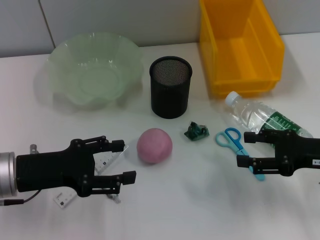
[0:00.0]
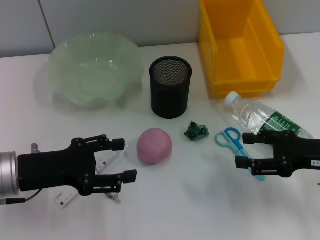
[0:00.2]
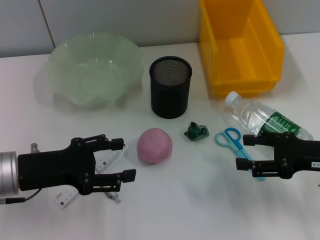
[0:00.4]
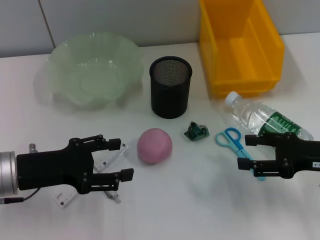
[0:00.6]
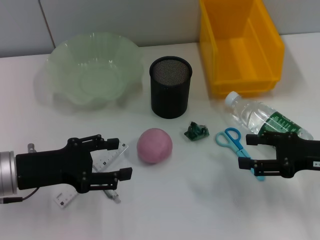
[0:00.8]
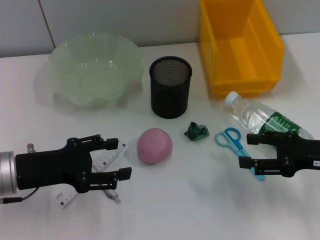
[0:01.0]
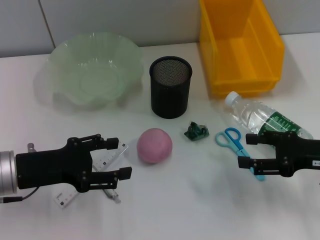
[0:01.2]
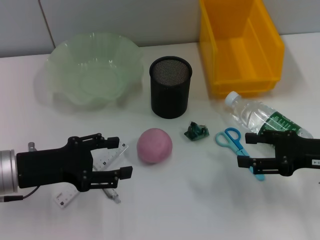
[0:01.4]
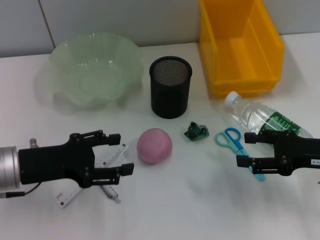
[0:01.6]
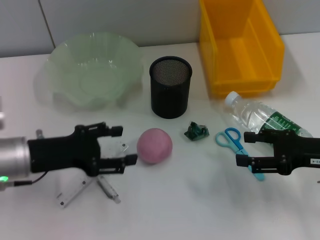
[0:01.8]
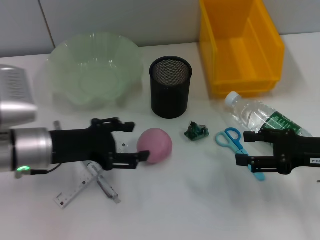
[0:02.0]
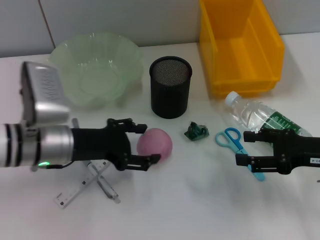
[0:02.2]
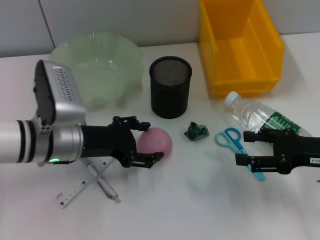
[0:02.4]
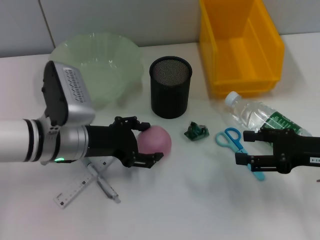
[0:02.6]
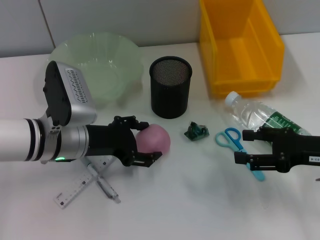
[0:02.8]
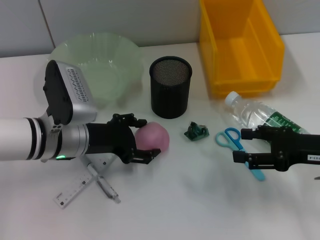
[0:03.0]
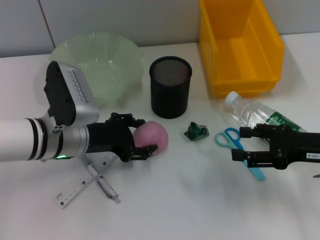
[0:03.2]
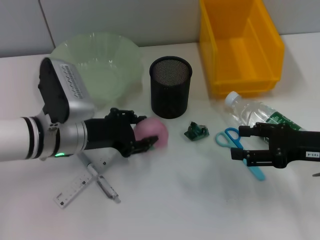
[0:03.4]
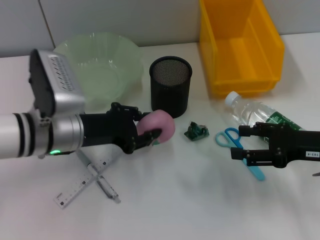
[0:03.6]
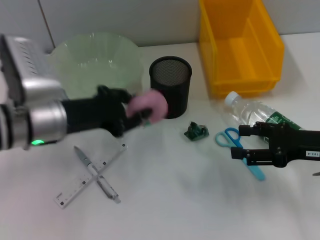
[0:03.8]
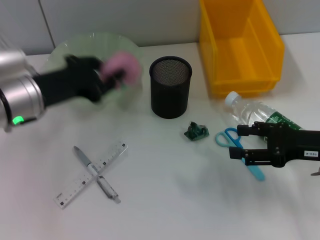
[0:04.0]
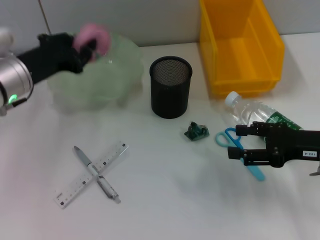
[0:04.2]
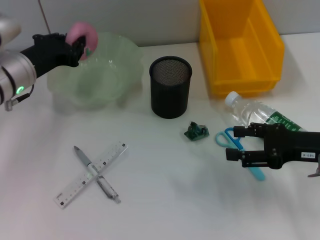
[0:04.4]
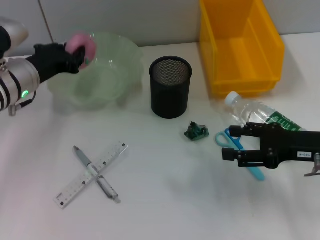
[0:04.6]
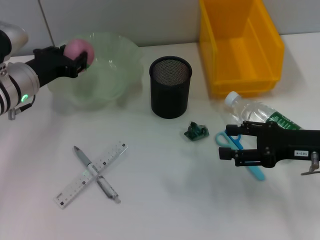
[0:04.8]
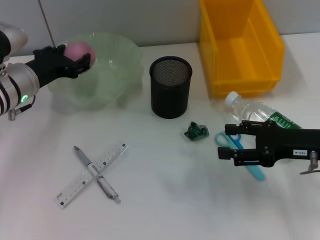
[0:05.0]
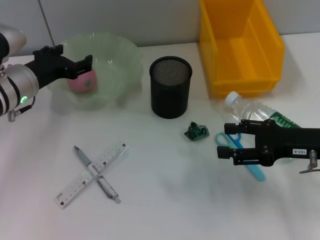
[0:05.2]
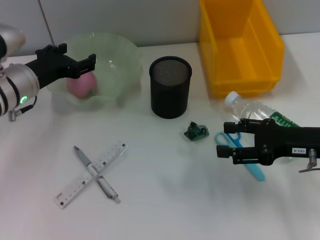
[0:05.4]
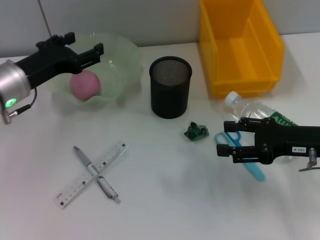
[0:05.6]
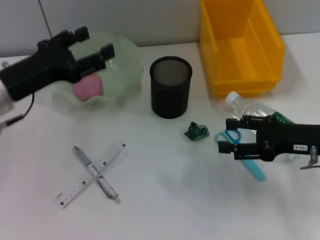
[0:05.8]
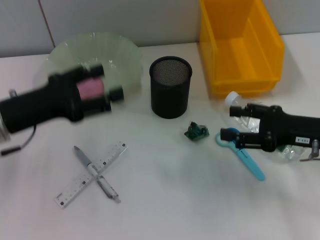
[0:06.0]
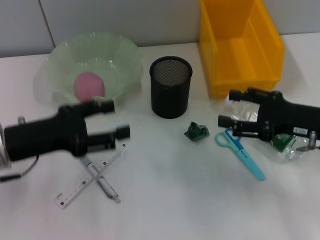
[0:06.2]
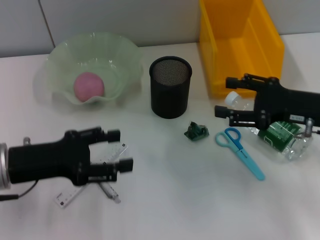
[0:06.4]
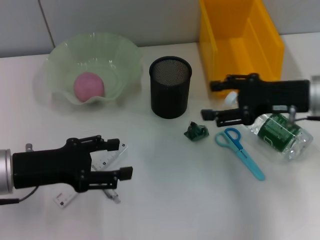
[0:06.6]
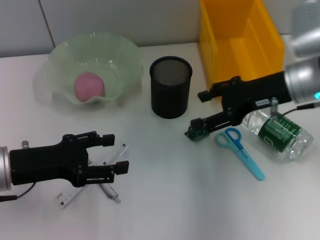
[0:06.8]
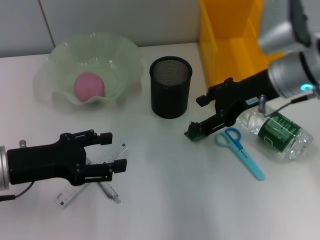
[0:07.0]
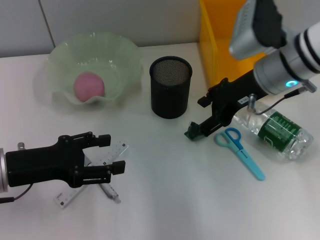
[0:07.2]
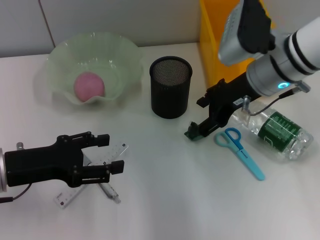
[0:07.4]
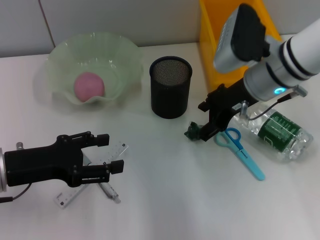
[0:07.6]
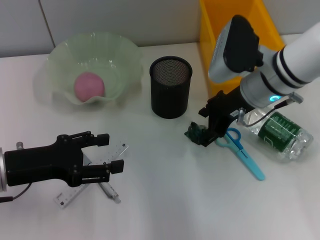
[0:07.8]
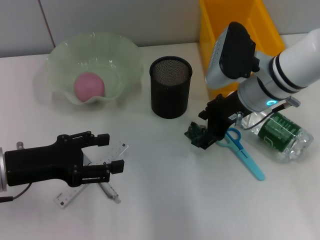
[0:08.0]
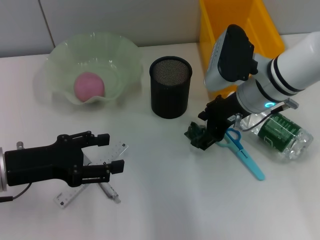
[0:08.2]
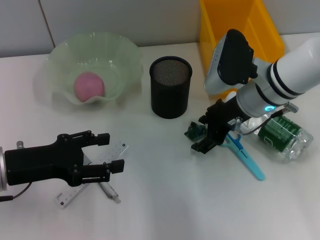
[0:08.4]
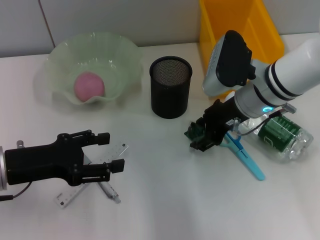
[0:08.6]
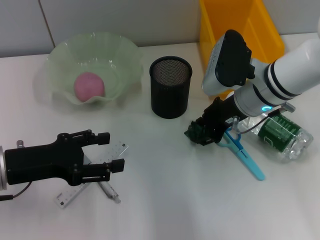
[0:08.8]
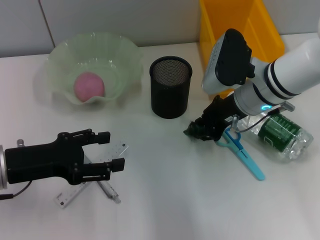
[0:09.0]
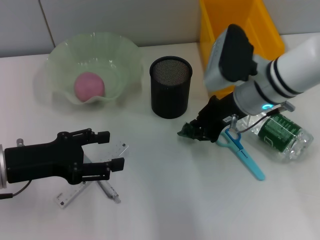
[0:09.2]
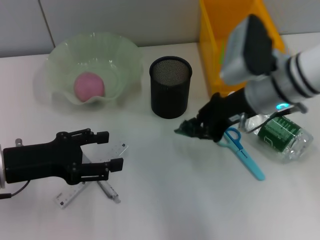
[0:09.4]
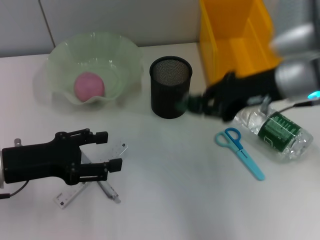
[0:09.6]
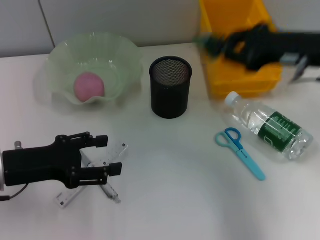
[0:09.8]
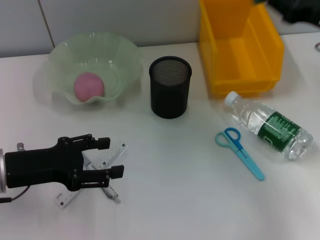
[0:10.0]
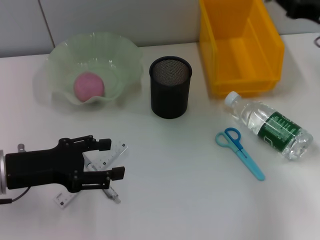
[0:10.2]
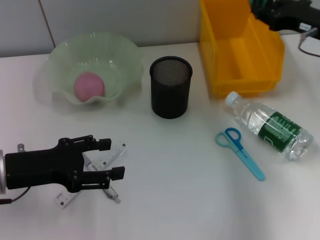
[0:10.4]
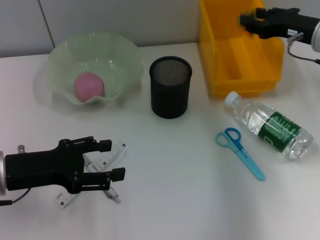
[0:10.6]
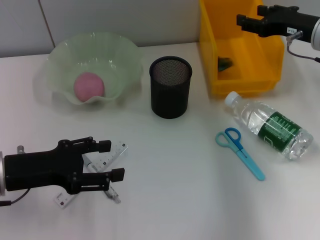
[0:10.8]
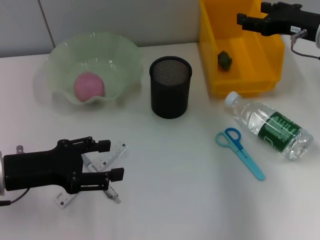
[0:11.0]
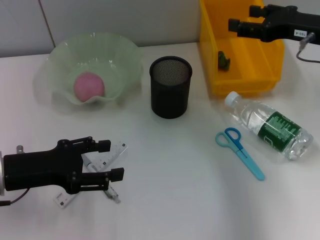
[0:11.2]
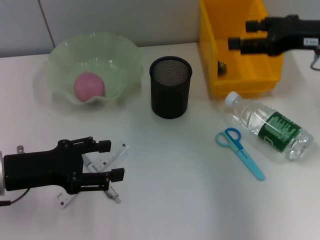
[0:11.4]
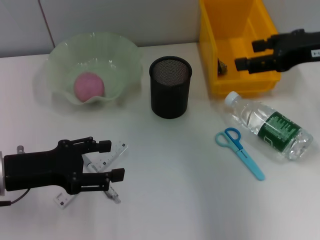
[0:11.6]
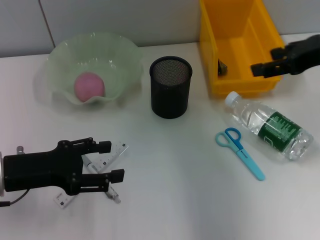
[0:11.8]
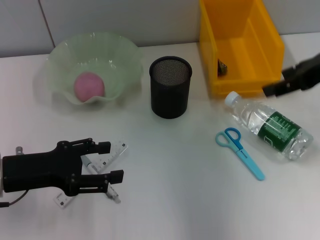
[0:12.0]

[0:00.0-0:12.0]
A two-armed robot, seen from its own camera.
Step, 0:00.0 to 0:03.2: Grab the peach with the left hand.
Step, 0:03.4 to 0:05.6: Place the peach into the fruit bowl with the left hand.
Step, 0:06.0 to 0:08.8: Grab the plastic with the right hand.
Step, 0:09.0 to 0:11.4: Place the plastic into the trash can with the right hand.
0:00.0 to 0:01.6: The two grippers keep their place.
0:01.6 to 0:03.0: The left gripper travels to the right and forward by some 10 cm.
0:03.0 to 0:04.4: The left gripper travels forward and to the left by about 10 cm, and closes up.
0:04.4 to 0:06.0: The left gripper shifts approximately 10 cm backward, and opens its fingers.
0:06.0 to 0:07.6: The right gripper moves to the left, forward and upward, about 15 cm.
0:07.6 to 0:09.0: The right gripper closes its fingers.
0:09.0 to 0:10.4: The right gripper travels to the right by approximately 15 cm.
0:10.4 to 0:12.0: The right gripper goes about 10 cm upward and backward, and opens its fingers.

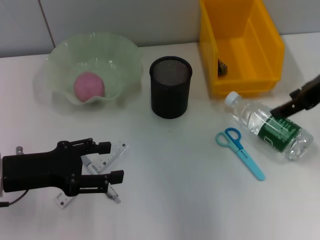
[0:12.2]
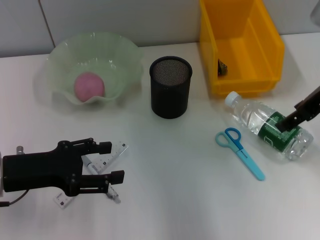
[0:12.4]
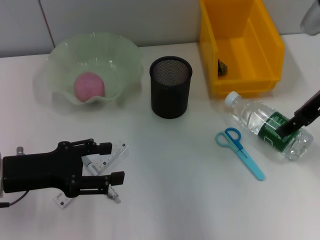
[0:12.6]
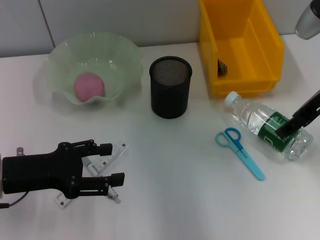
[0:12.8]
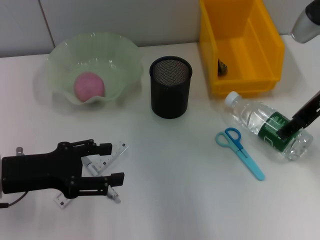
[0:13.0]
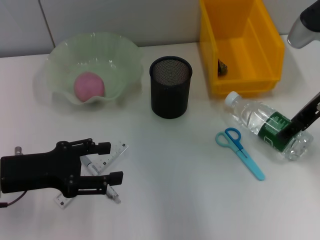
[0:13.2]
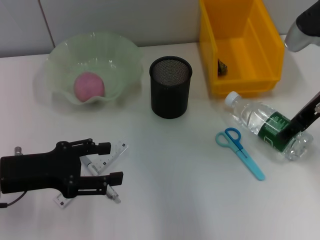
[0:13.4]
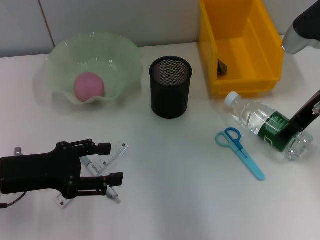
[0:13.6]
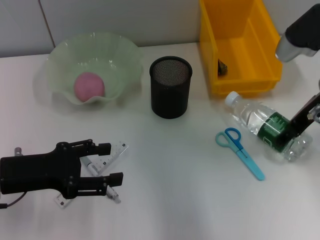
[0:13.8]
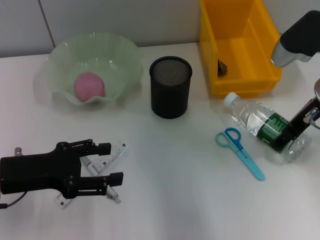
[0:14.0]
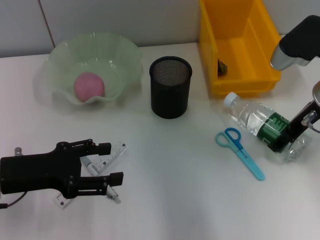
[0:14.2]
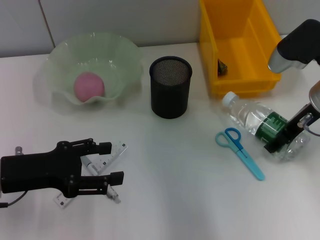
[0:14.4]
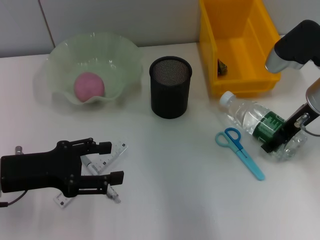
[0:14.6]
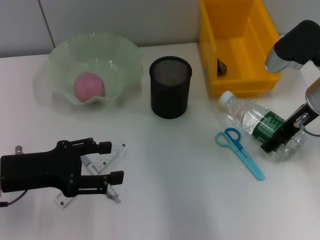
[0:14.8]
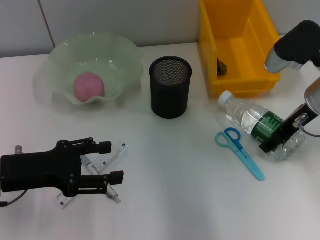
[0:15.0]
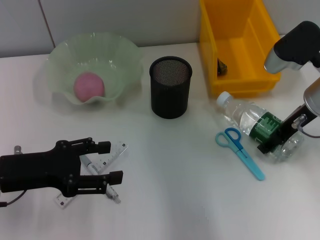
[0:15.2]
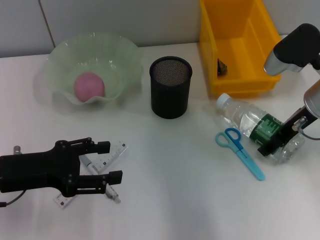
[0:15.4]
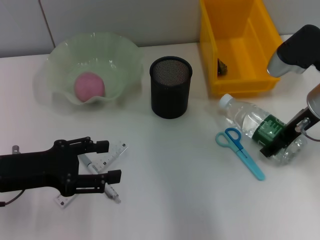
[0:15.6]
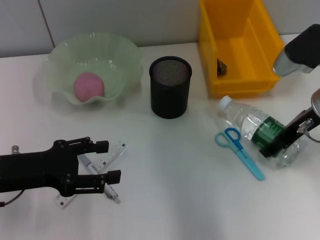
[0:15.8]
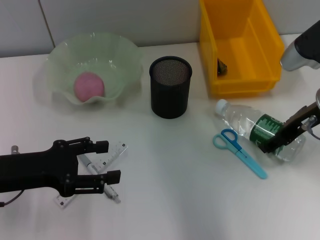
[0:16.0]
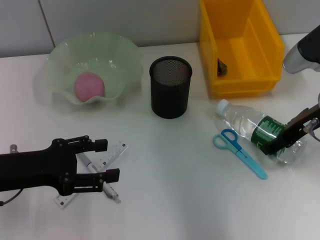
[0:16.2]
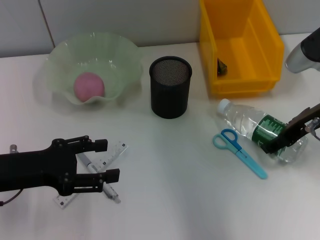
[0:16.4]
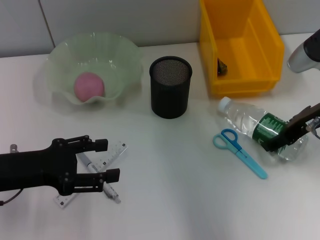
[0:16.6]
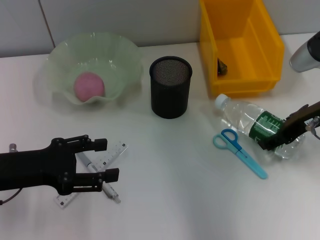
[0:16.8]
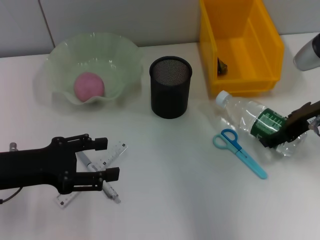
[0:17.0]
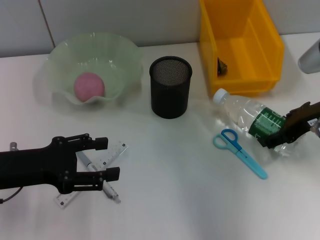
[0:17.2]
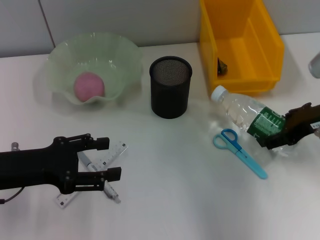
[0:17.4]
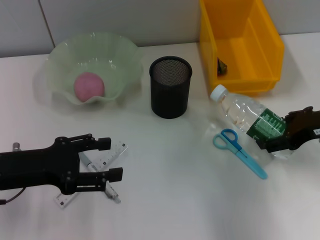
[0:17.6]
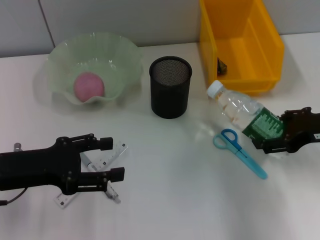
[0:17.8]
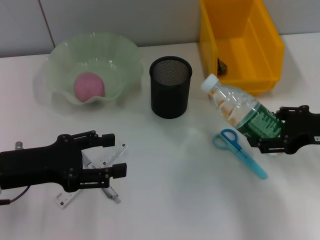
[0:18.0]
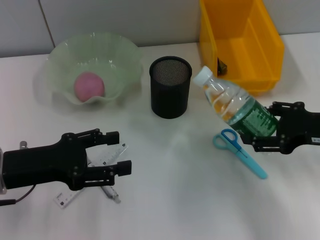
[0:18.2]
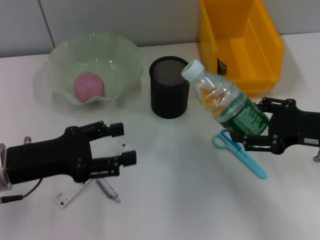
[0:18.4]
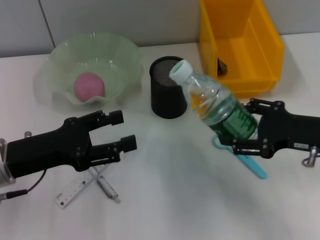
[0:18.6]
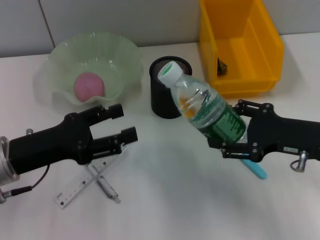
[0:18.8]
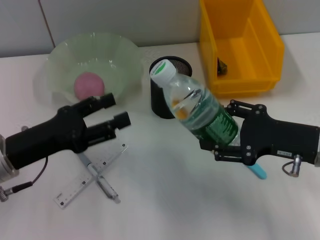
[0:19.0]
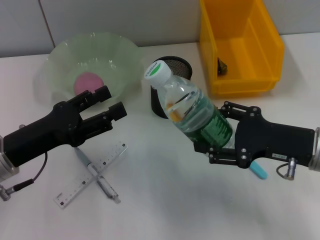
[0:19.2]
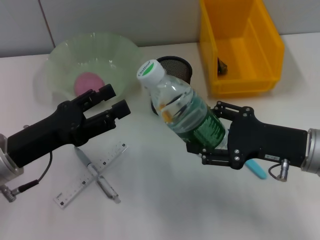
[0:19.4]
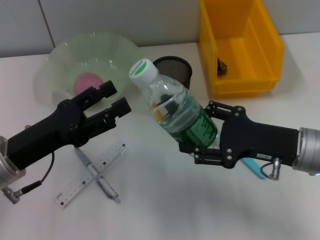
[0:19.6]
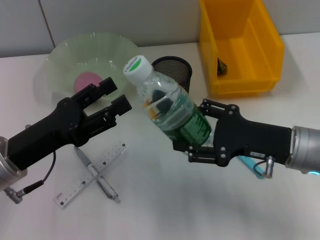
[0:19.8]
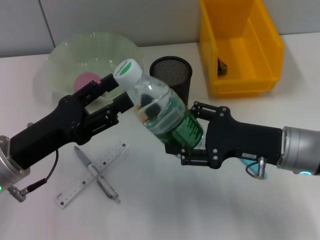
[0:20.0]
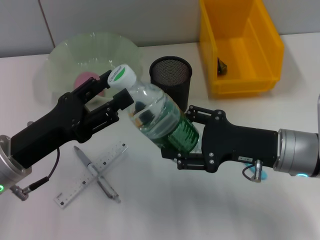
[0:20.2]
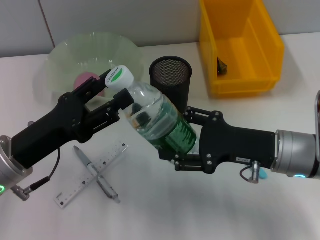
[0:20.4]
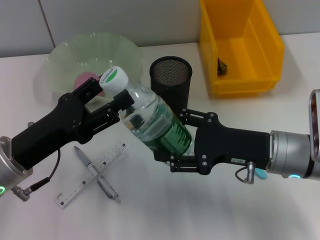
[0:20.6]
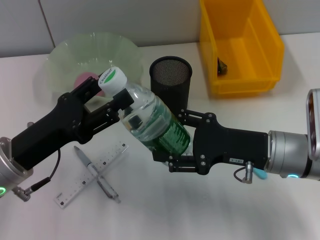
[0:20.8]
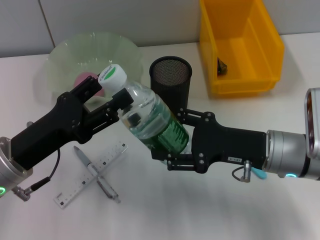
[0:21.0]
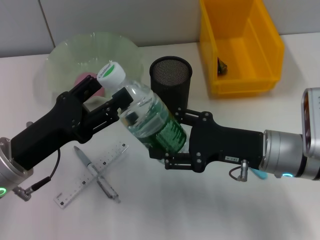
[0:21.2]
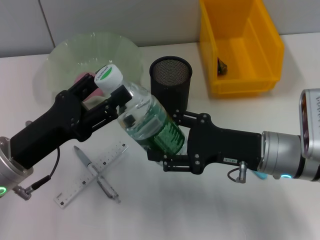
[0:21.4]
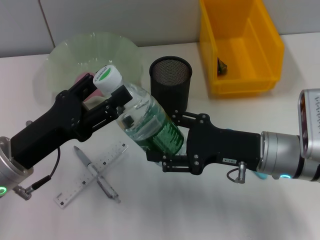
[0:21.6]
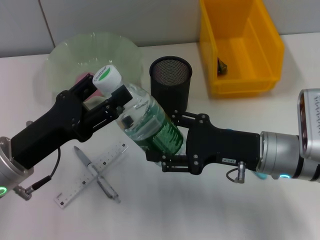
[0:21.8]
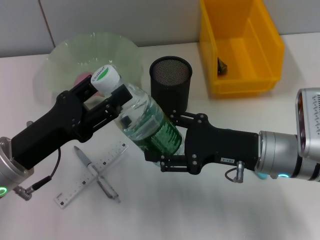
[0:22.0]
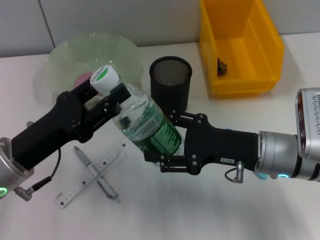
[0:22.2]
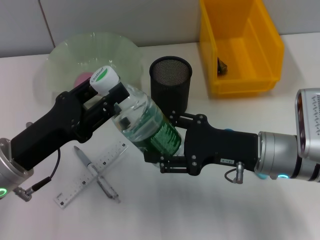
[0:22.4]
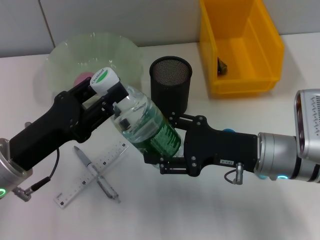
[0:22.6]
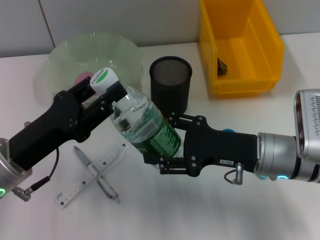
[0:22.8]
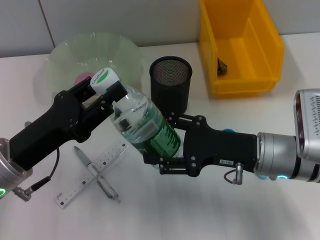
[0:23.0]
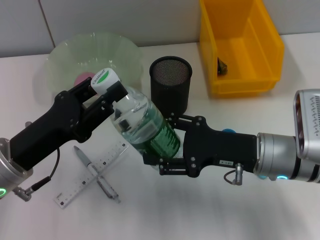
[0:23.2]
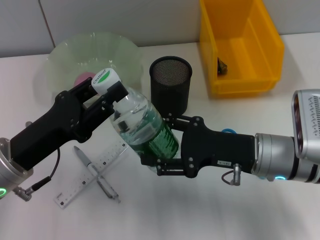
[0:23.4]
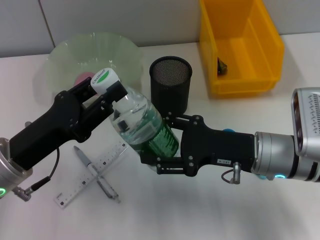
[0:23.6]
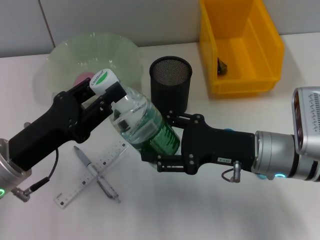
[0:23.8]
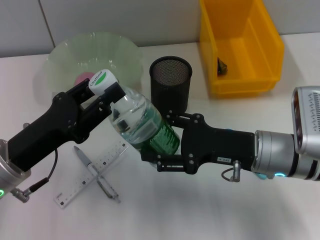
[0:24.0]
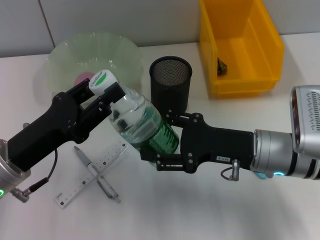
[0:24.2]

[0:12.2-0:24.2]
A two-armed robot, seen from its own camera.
Step, 0:12.2 to 0:15.2: Grab the water bottle with the right hand.
0:12.2 to 0:13.8: The right gripper goes approximately 5 cm downward.
0:13.8 to 0:16.6: The grippers move only a little.
0:16.6 to 0:18.2: The right gripper heads backward, covering approximately 5 cm.
0:18.2 to 0:19.8: The right gripper shifts roughly 5 cm to the left.
0:19.8 to 0:21.2: There are only small adjustments of the grippers.
0:21.2 to 0:22.6: The left gripper closes its fingers.
0:22.6 to 0:24.2: Both grippers stay put.
